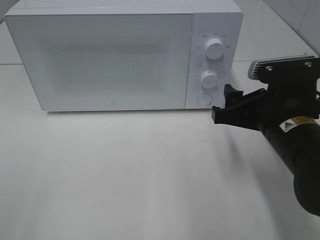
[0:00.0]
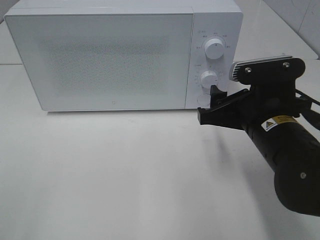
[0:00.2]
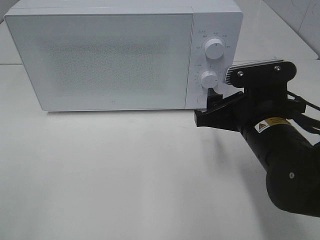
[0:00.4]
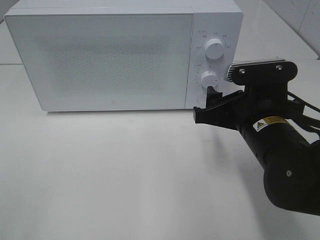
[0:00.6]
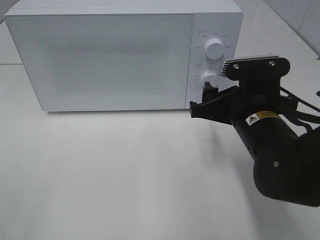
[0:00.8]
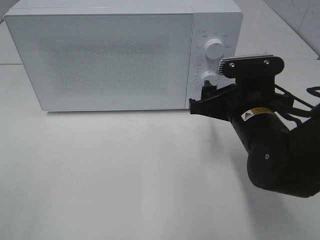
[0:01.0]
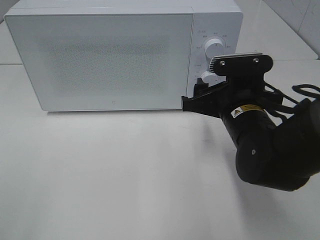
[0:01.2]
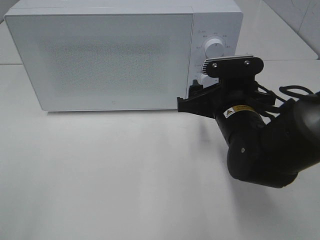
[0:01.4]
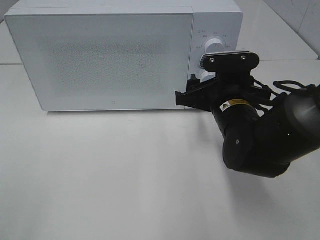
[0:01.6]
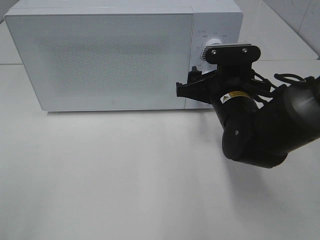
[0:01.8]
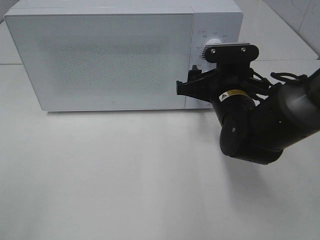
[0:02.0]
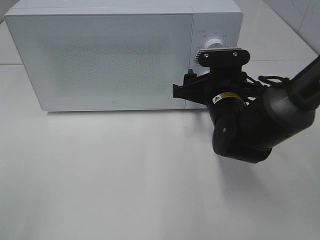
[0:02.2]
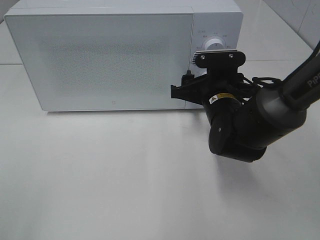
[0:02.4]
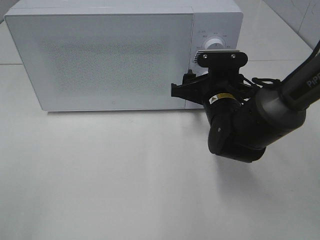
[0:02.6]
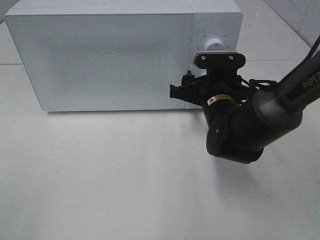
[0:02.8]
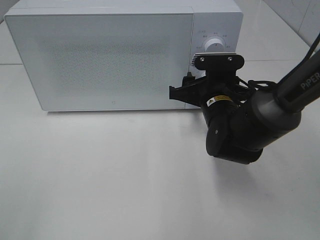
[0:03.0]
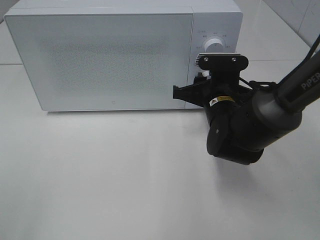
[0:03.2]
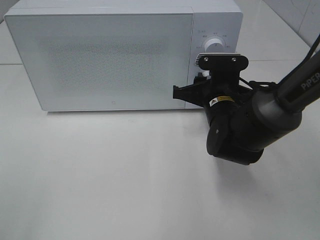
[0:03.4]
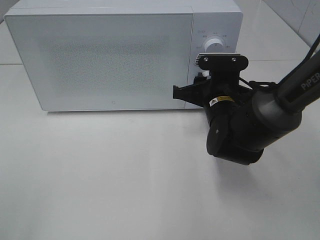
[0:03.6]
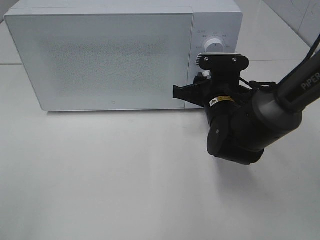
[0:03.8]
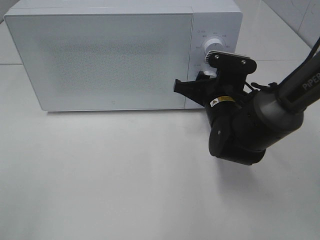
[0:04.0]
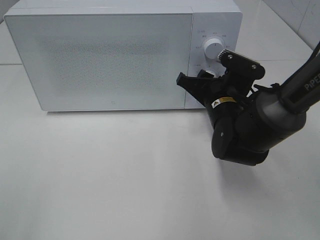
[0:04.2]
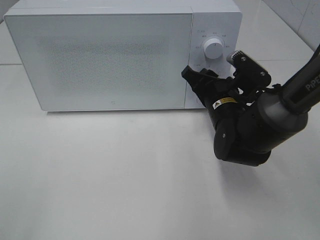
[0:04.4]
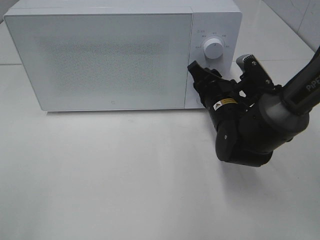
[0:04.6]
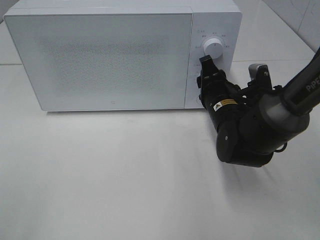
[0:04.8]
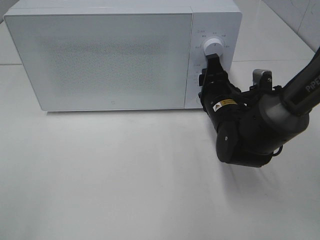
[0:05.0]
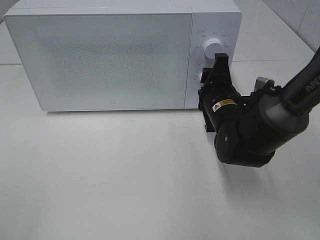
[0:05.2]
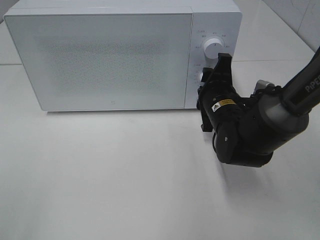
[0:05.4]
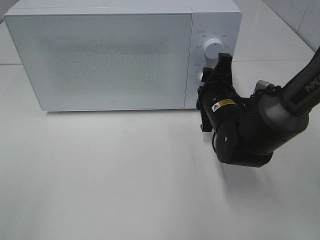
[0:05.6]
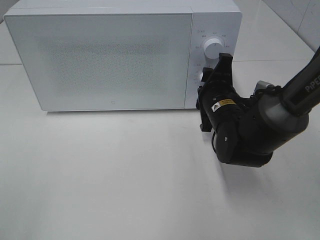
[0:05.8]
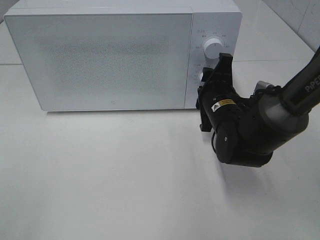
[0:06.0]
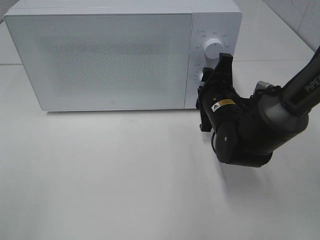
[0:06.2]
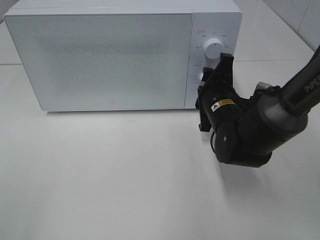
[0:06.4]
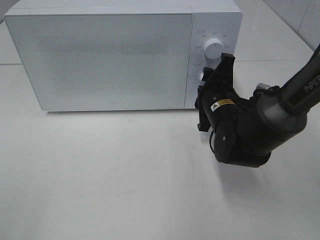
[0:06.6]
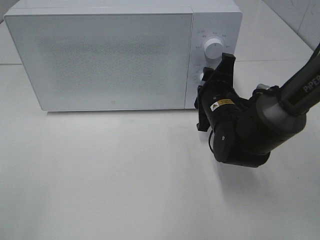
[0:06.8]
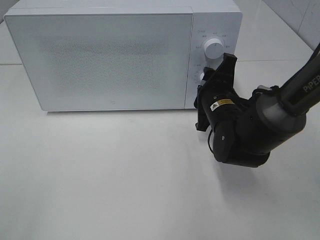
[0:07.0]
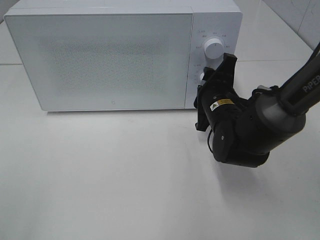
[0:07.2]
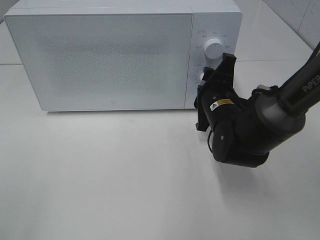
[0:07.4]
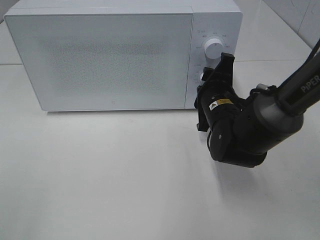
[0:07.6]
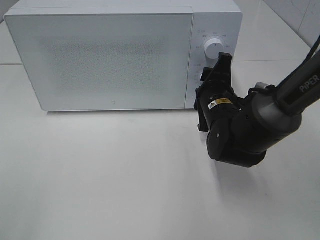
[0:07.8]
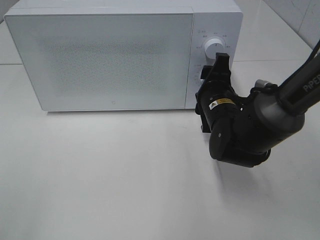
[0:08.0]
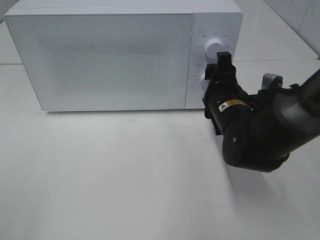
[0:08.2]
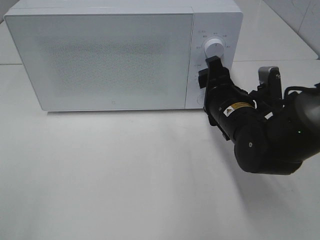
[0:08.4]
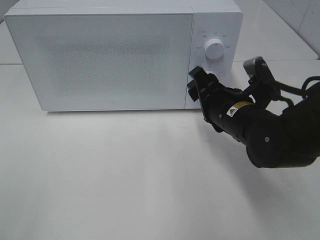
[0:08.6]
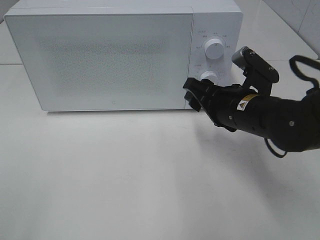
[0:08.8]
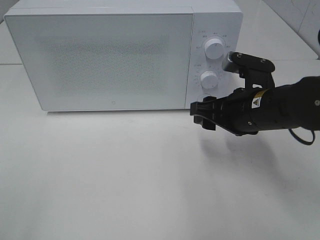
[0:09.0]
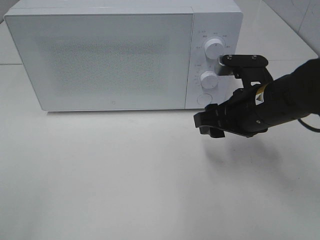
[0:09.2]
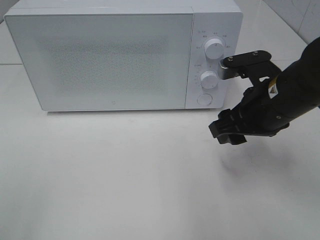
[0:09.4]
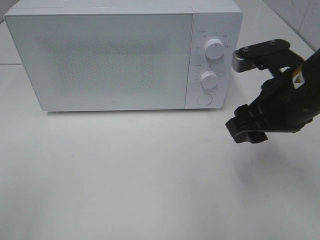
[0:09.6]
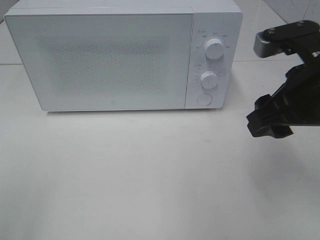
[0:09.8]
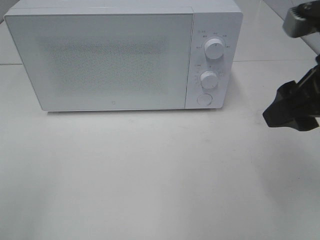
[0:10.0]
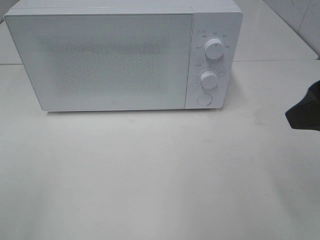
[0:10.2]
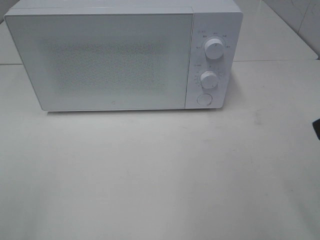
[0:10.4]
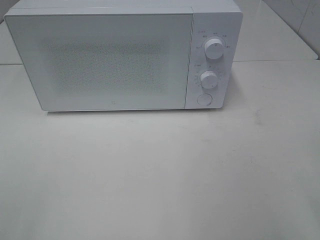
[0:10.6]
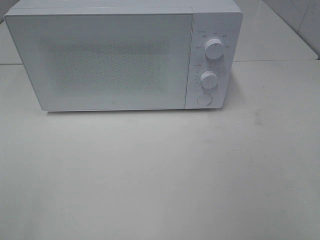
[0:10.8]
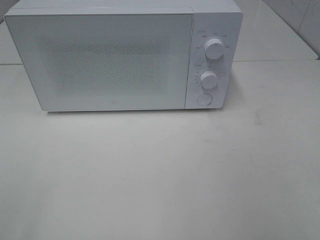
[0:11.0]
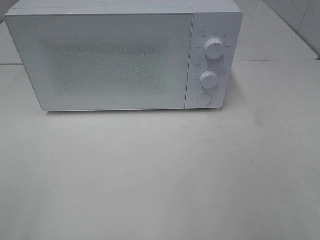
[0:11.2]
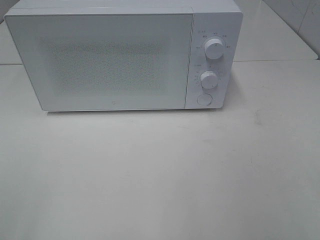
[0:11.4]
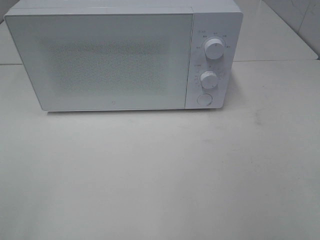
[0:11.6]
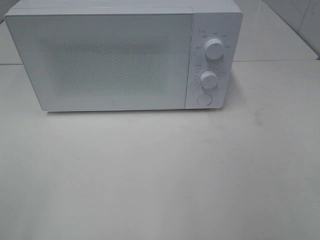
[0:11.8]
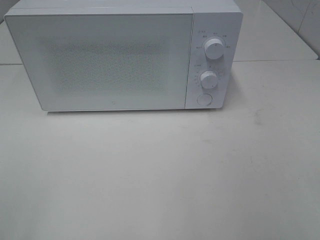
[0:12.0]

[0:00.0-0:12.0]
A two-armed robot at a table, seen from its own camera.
Task of the whole recording: Heat the burger.
Step, 0:00.0 to 0:08.4: Right hand: twist timer button.
0:00.0 to 0:01.6: The right gripper shifts approximately 5 cm forward.
0:01.6 to 0:03.0: The grippers move only a little.
0:06.0 to 0:07.6: There are only small adjustments of the grippers.
0:07.6 to 0:09.0: The right gripper travels backward by roughly 5 cm.
0:09.0 to 0:10.4: The right gripper is displaced backward, upward and to the right by roughly 25 cm.

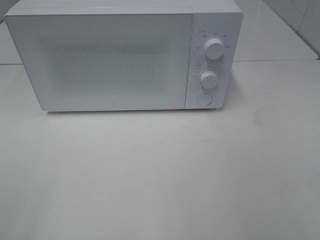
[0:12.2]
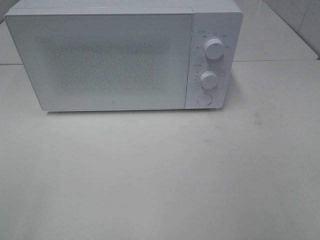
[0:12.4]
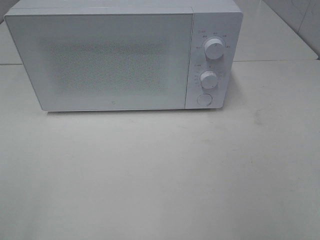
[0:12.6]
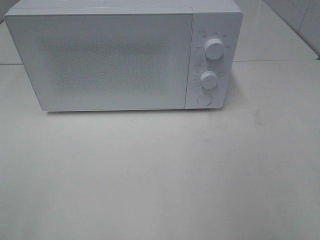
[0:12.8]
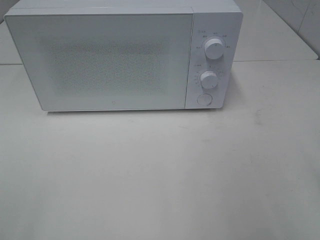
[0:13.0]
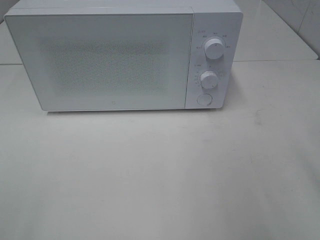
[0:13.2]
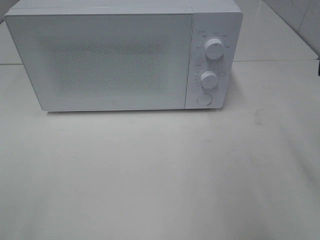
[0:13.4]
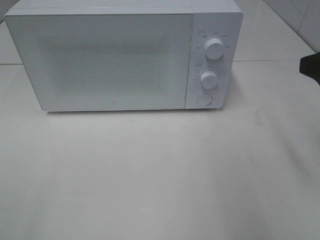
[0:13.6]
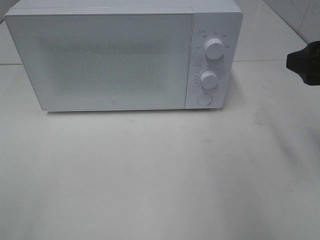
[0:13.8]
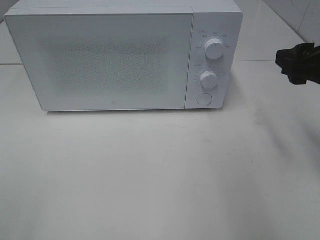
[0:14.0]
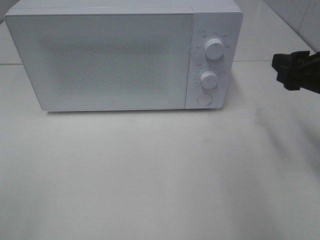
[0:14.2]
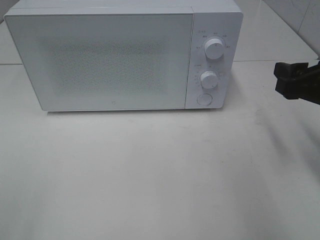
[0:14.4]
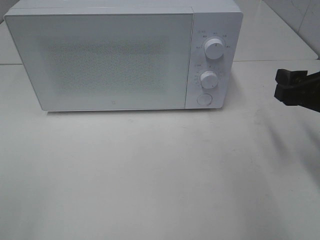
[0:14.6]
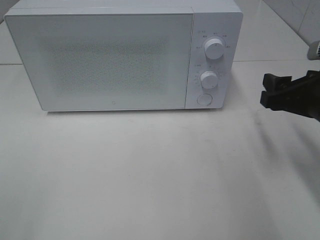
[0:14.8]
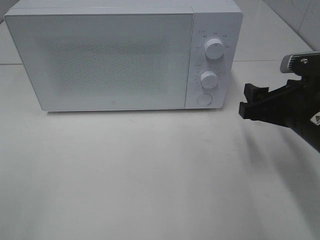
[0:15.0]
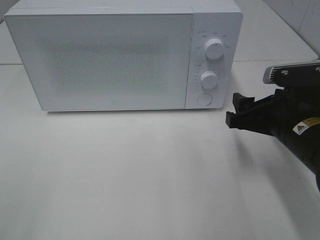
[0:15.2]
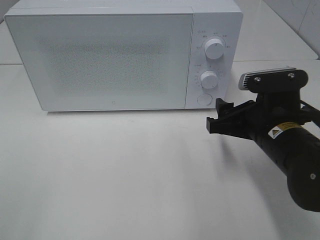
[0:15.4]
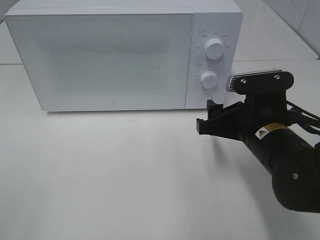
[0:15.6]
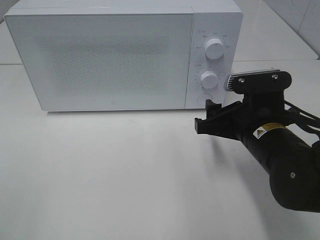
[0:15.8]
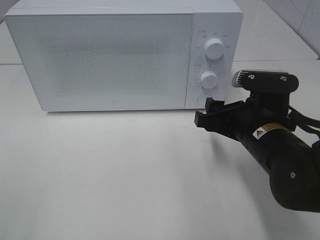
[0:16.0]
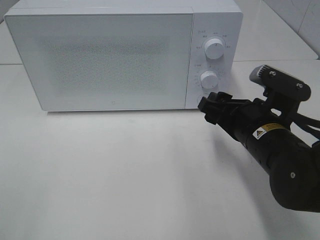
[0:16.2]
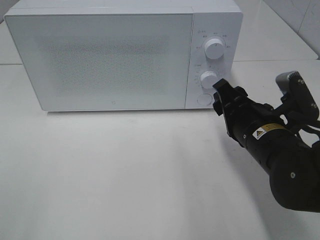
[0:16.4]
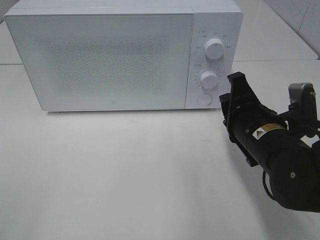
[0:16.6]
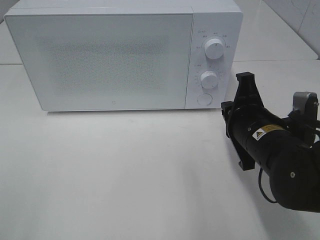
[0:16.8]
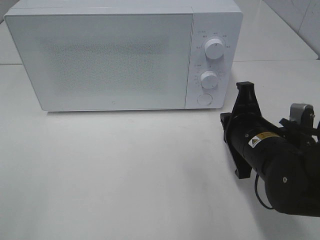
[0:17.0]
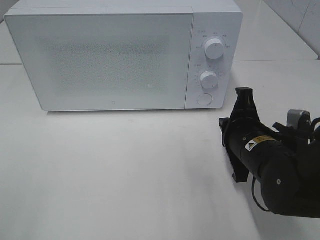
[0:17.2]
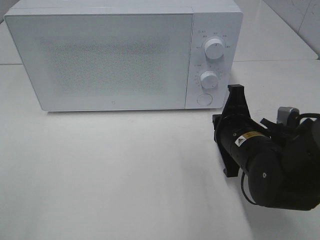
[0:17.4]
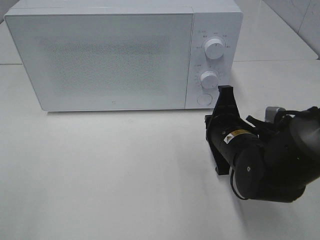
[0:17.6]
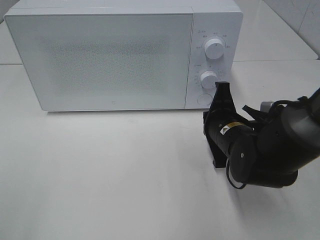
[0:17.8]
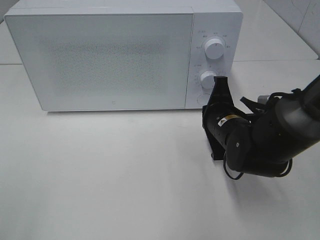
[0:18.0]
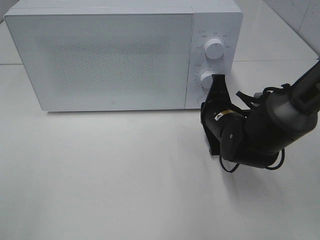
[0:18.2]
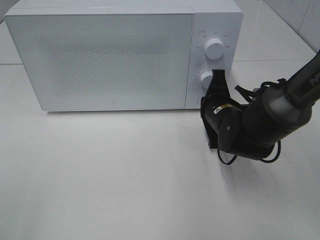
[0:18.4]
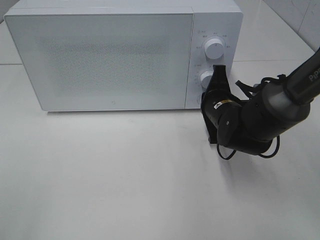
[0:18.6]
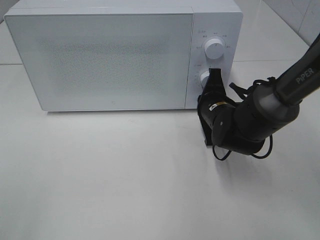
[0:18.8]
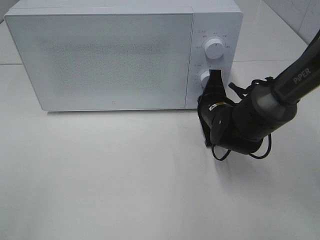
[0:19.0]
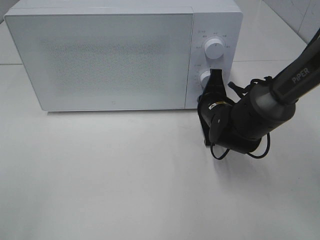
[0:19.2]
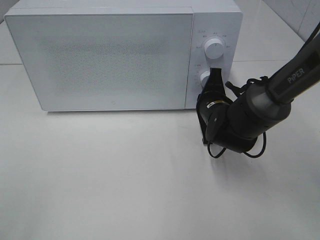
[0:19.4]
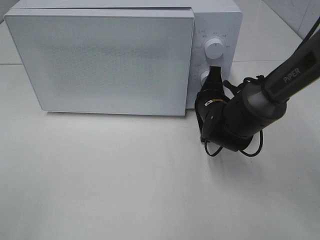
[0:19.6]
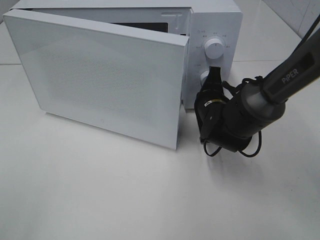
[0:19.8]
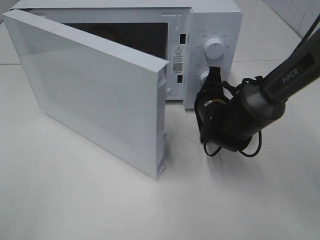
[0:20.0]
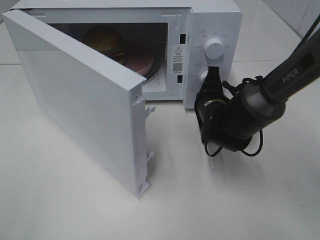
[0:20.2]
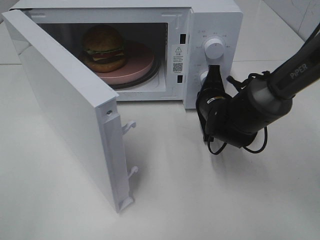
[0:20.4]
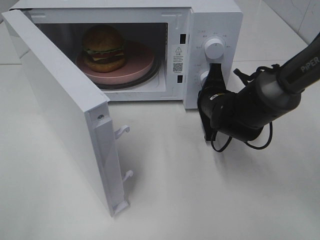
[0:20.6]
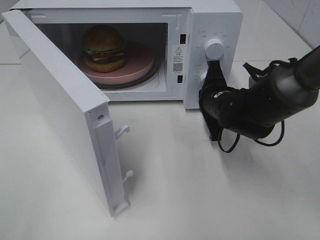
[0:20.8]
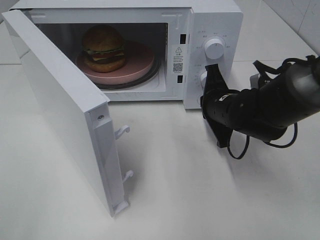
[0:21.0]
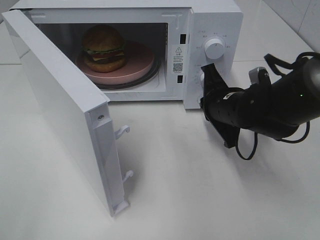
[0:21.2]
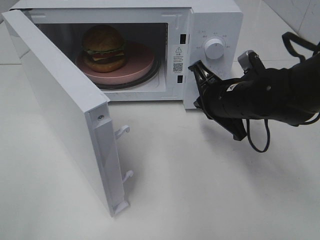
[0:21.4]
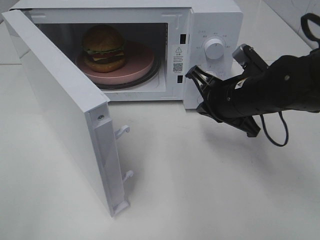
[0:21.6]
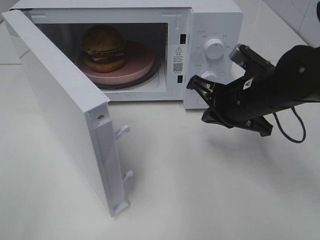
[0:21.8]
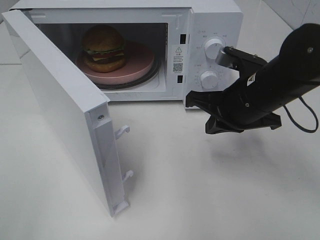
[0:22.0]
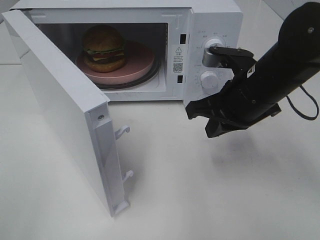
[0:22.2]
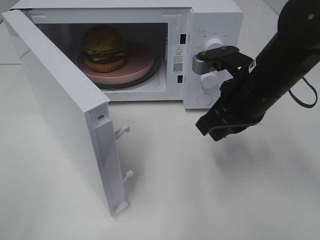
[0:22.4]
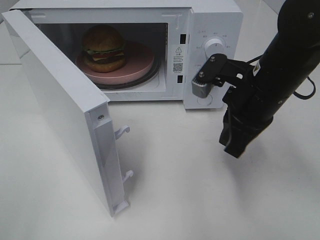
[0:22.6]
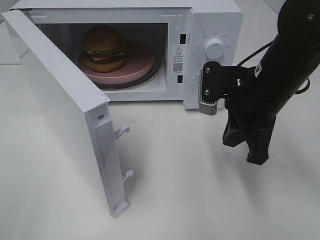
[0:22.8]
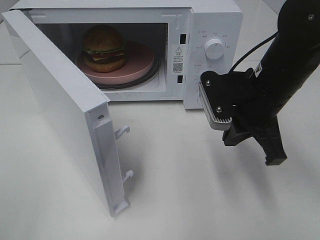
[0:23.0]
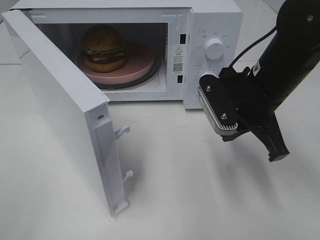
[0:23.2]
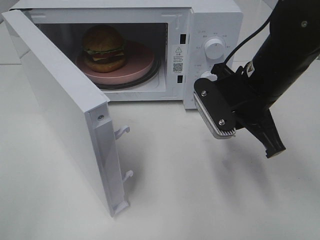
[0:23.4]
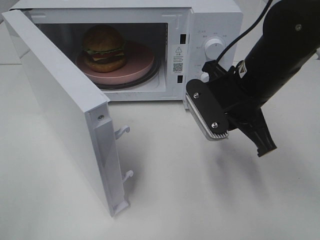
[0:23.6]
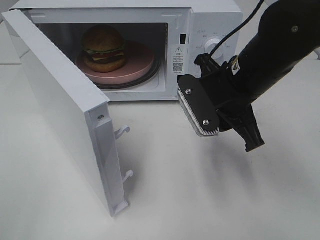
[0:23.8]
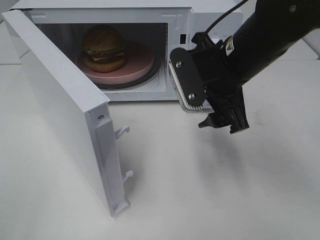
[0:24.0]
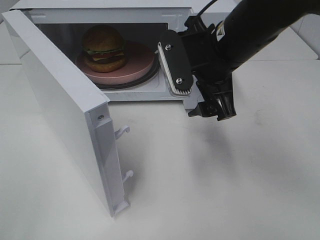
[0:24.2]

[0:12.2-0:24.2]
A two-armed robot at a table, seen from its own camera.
Task of the whole recording: Heat the burger.
Step, 0:12.2 to 0:21.2: Right hand: press the switch.
0:12.2 to 0:13.8: The right gripper moves forward, about 20 cm.
0:13.8 to 0:15.2: The right gripper moves downward and to the left, roughly 15 cm.
0:15.2 to 0:16.6: The right gripper closes up.
0:16.6 to 0:18.2: The right gripper goes about 10 cm forward and downward, and closes up.
0:19.8 to 0:21.2: The right gripper shifts by roughly 5 cm.
0:21.2 to 0:22.6: The right gripper shifts approximately 10 cm upward.
0:22.6 to 0:24.2: The right gripper shifts some 5 cm to the left, and opens its fingers.
